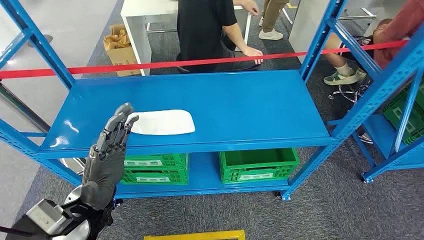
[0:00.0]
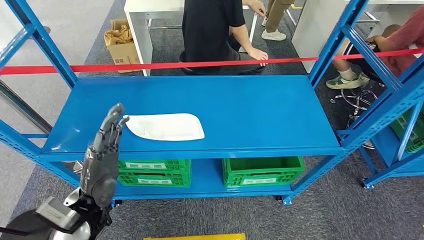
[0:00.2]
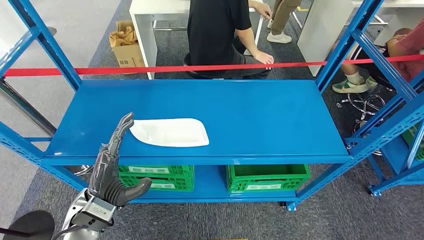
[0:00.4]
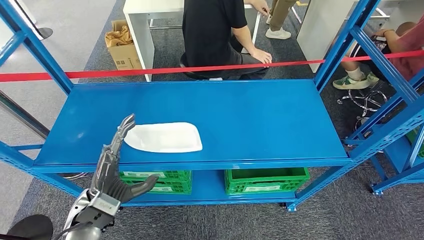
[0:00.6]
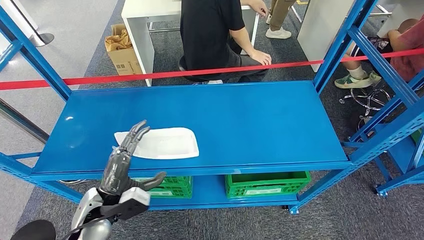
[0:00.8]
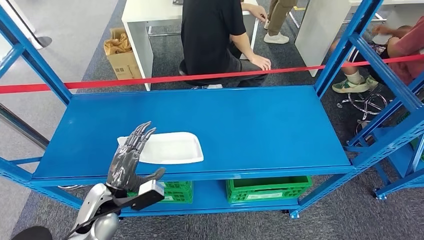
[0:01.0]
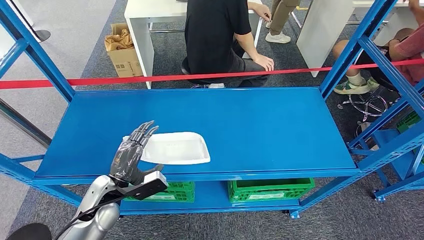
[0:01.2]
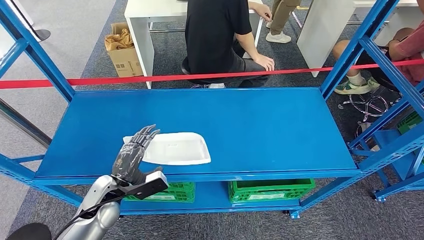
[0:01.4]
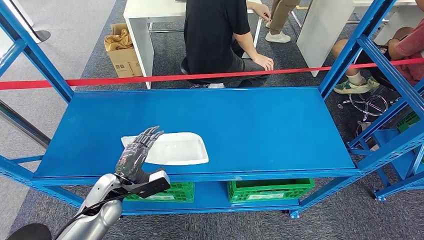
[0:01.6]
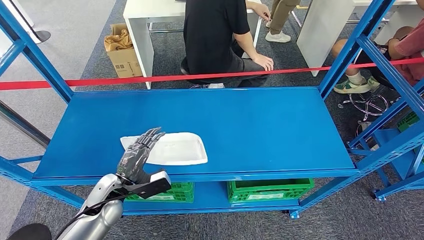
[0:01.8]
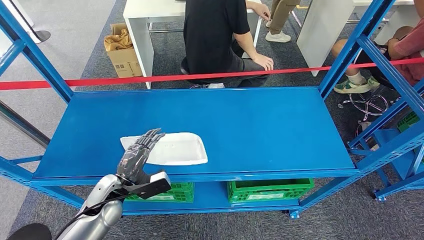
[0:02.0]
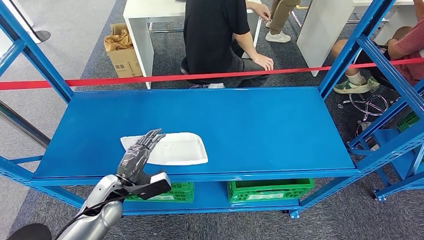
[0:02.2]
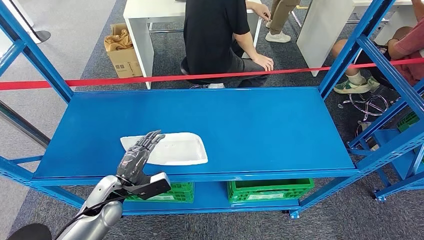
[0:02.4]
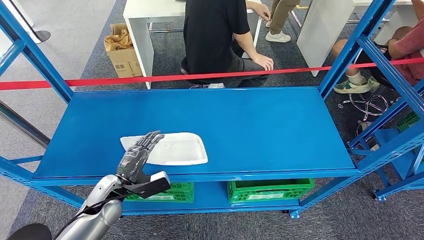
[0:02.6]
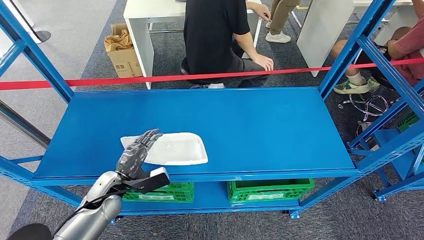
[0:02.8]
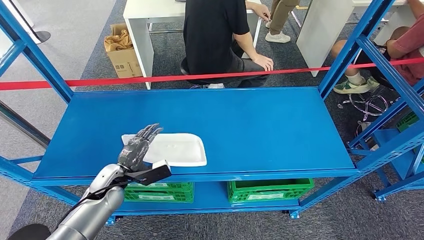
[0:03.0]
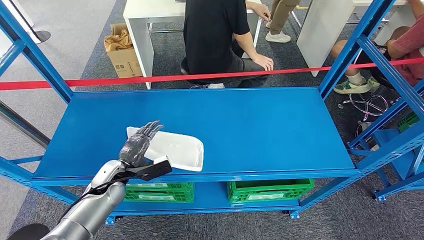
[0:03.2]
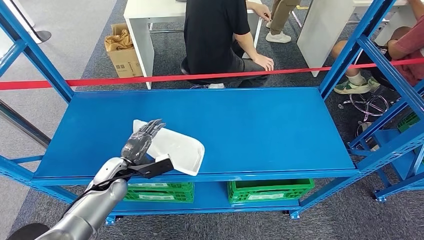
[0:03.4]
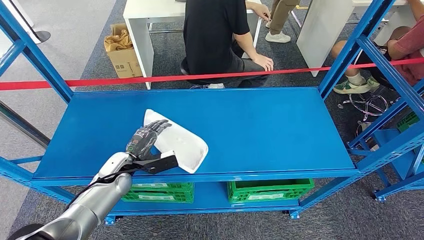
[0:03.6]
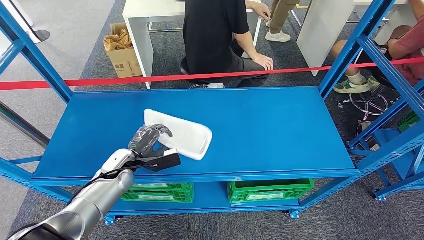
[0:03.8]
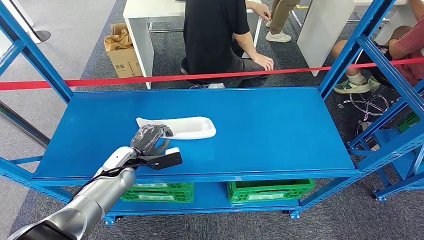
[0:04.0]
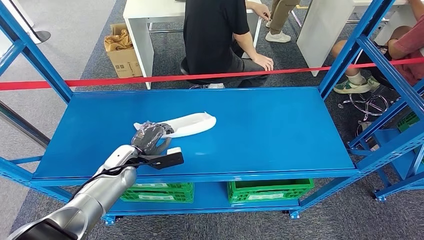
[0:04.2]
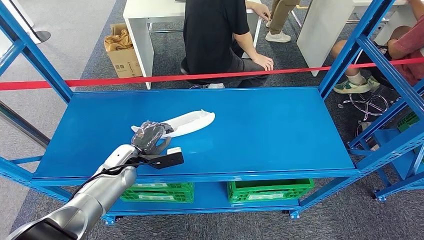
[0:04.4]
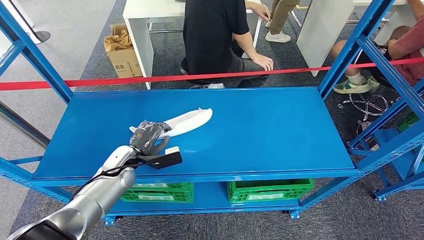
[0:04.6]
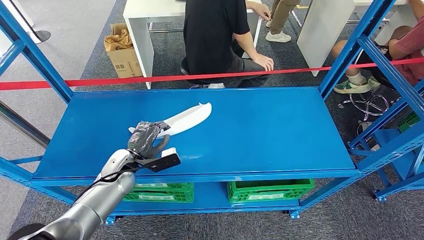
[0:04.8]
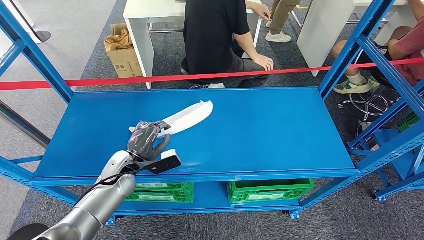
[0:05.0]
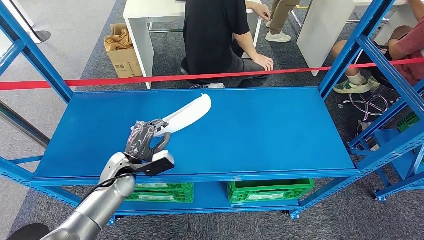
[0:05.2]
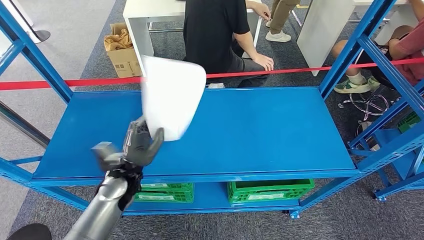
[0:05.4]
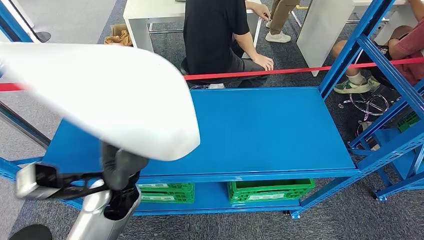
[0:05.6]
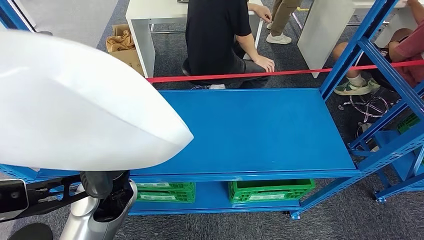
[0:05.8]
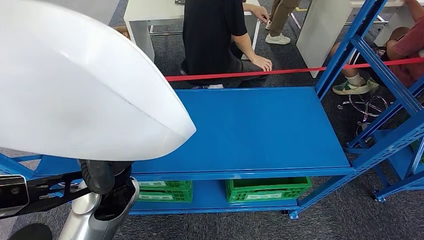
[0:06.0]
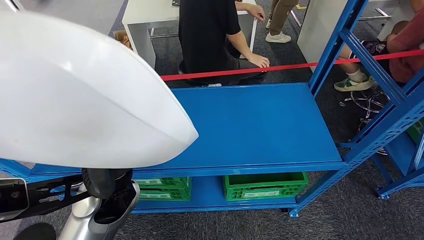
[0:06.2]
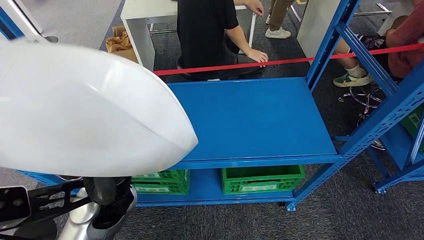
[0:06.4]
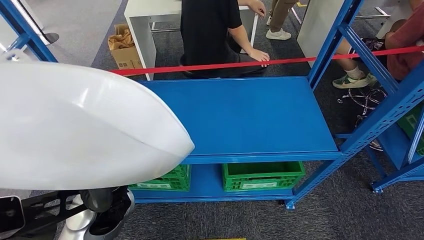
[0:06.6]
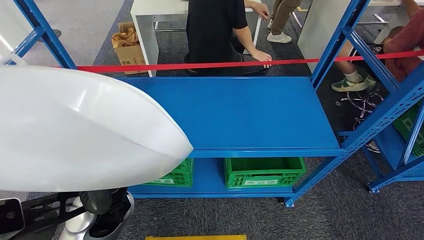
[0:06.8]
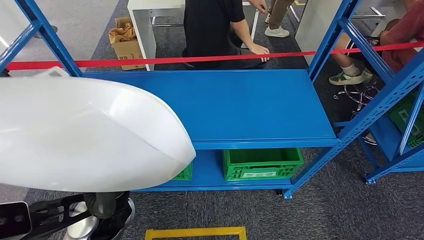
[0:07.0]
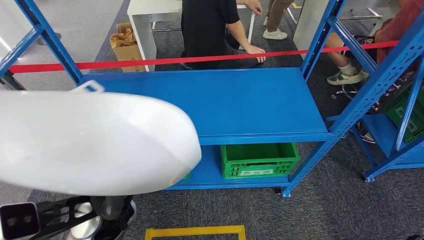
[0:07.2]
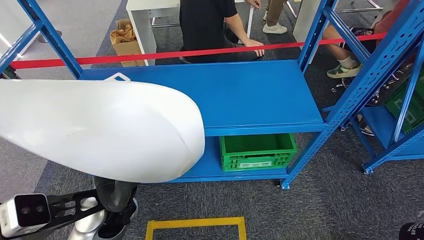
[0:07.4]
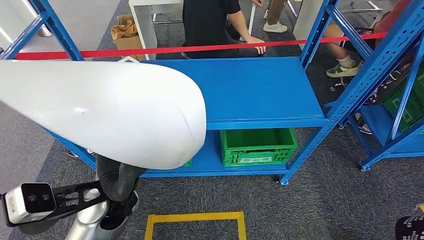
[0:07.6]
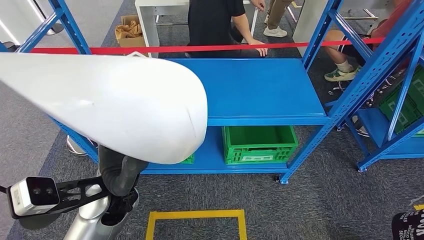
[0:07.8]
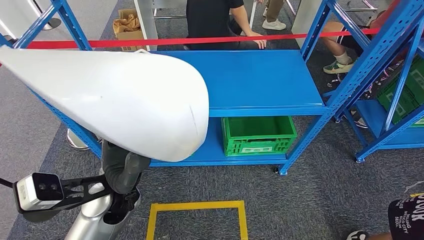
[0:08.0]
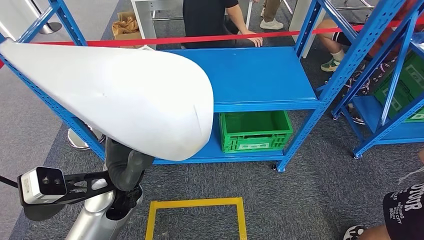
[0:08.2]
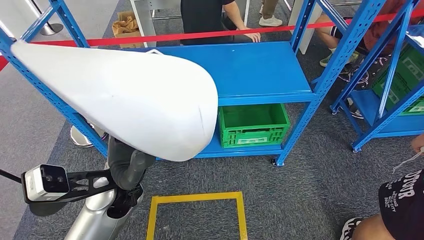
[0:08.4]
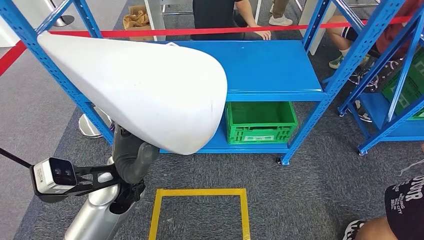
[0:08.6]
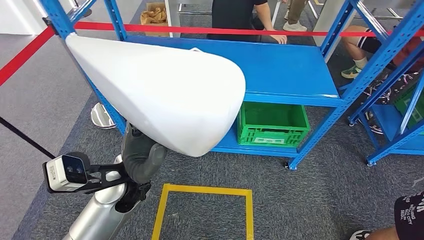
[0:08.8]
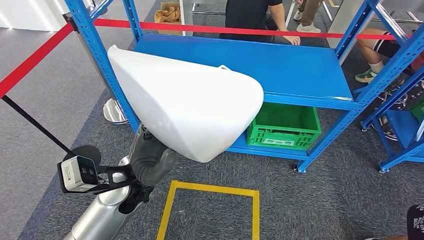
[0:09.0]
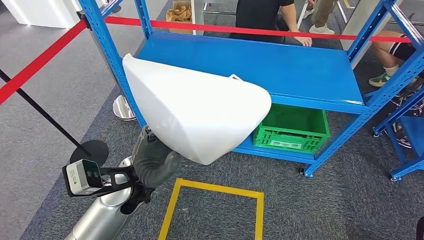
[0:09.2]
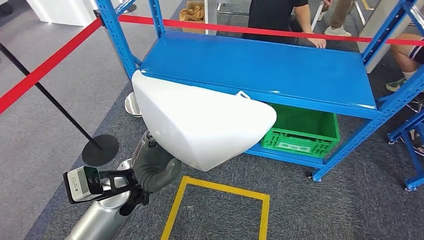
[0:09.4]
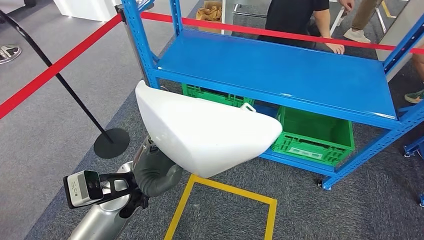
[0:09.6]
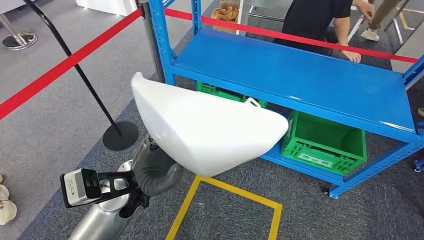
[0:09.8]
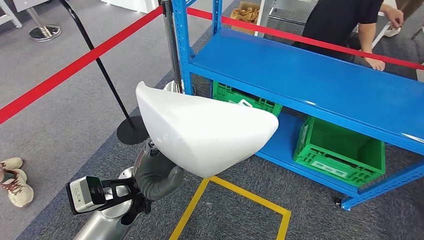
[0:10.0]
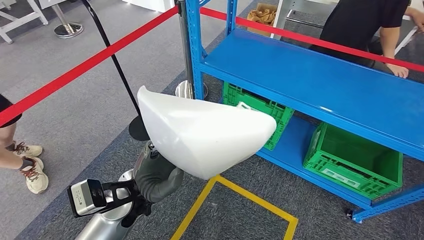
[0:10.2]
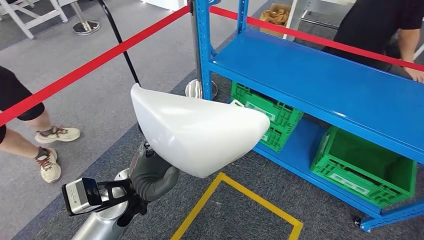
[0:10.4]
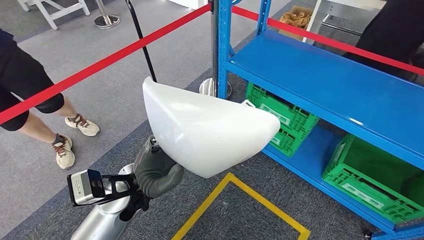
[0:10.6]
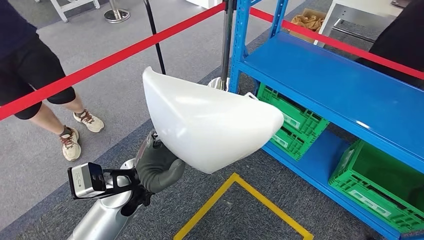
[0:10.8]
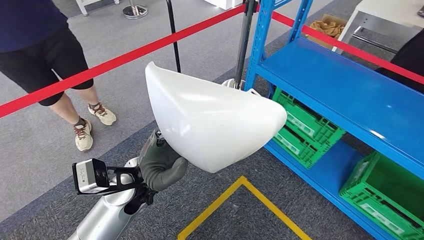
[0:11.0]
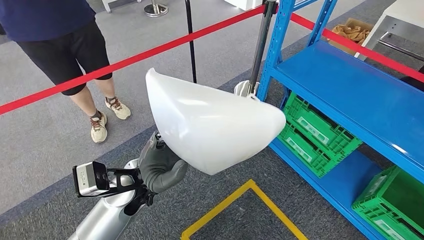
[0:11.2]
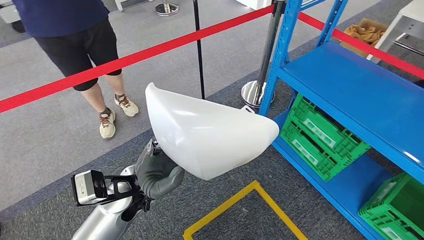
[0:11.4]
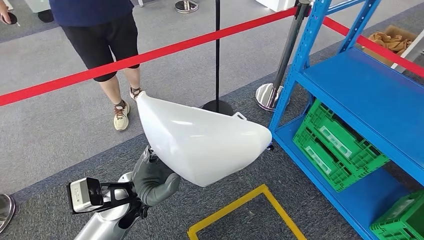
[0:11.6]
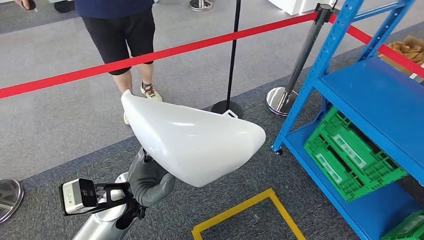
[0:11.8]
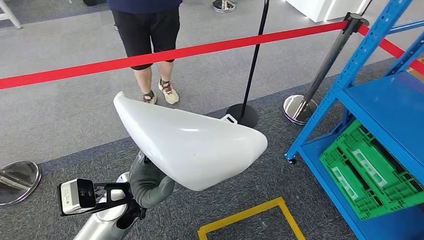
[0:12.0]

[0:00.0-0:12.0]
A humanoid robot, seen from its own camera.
Step, 0:00.0 to 0:06.2: Pick up the small parts from the shelf.
0:01.6 to 0:03.0: The hands make only small movements.
0:03.0 to 0:04.4: The left hand travels forward by roughly 5 cm.

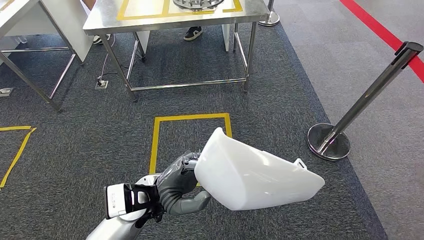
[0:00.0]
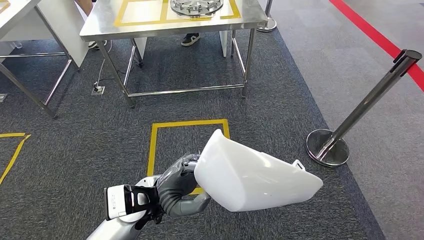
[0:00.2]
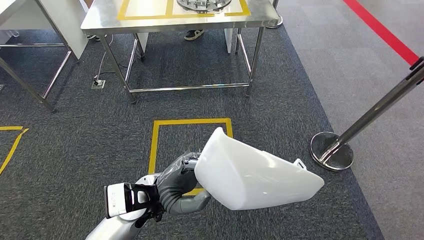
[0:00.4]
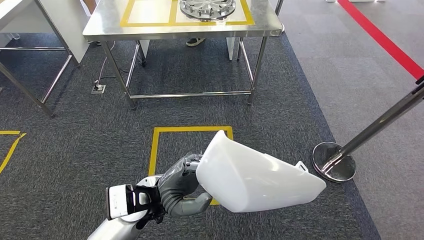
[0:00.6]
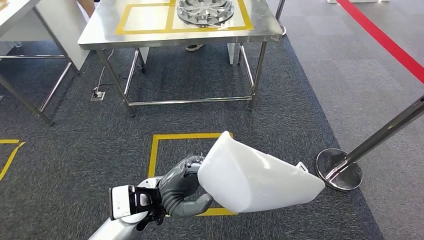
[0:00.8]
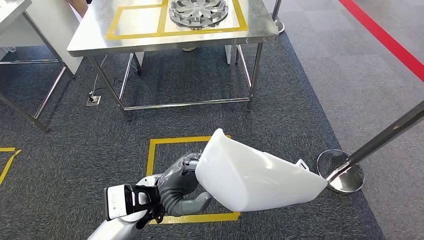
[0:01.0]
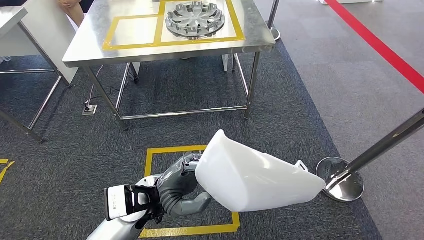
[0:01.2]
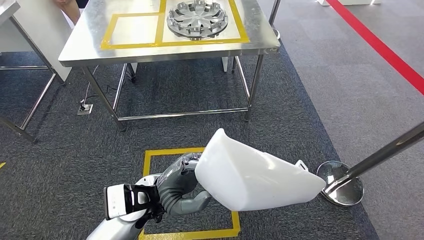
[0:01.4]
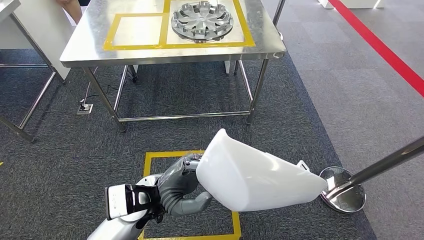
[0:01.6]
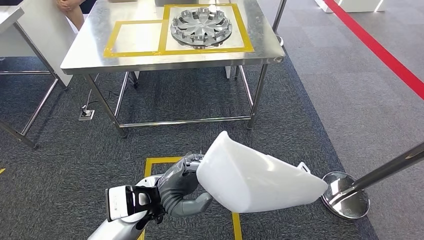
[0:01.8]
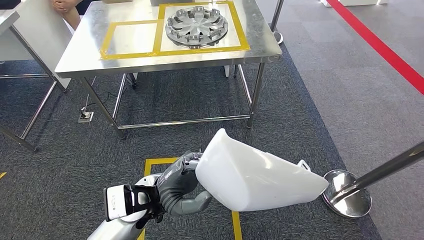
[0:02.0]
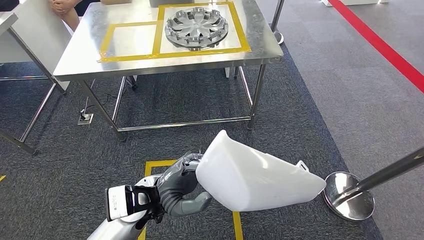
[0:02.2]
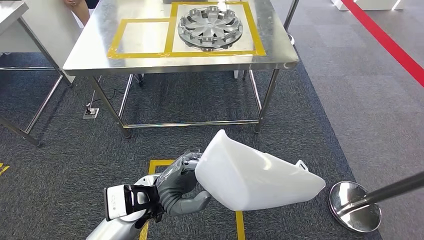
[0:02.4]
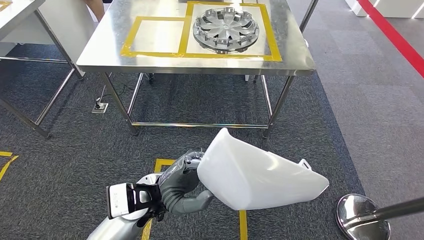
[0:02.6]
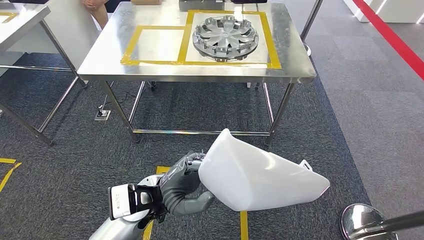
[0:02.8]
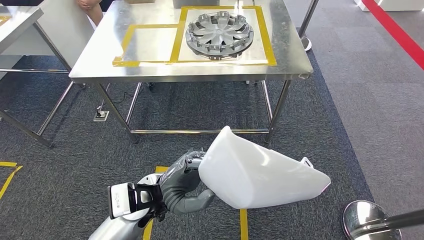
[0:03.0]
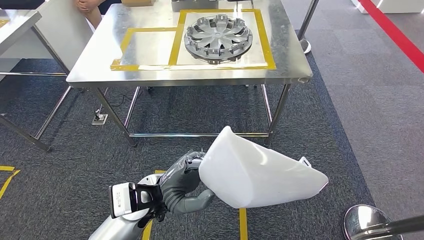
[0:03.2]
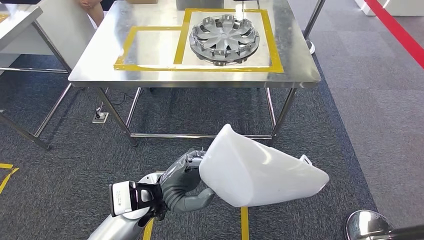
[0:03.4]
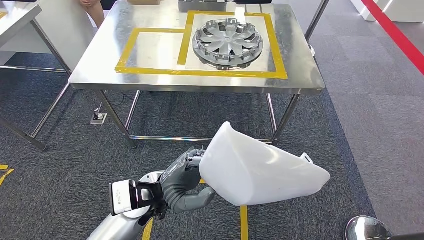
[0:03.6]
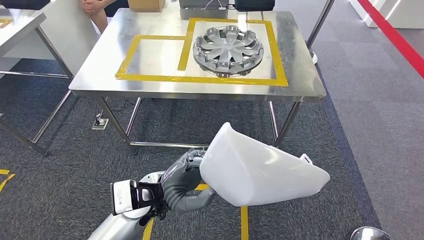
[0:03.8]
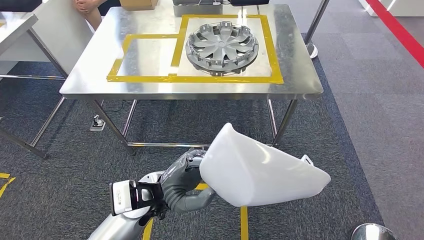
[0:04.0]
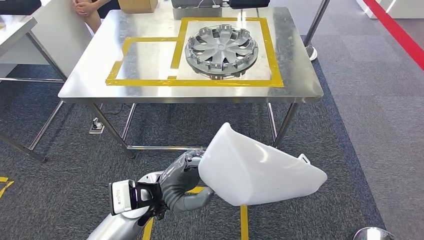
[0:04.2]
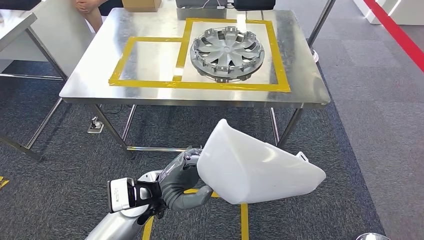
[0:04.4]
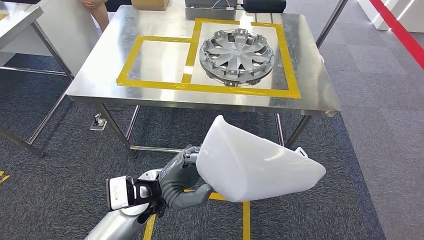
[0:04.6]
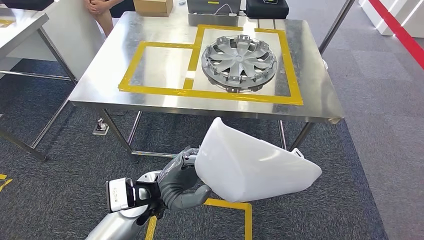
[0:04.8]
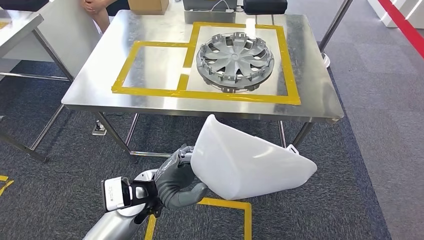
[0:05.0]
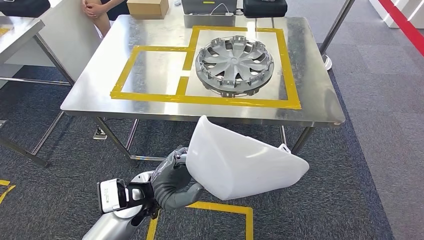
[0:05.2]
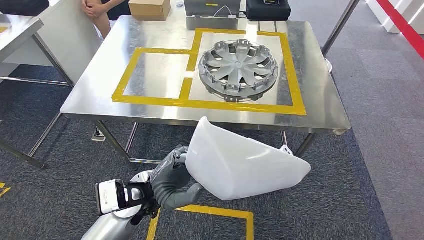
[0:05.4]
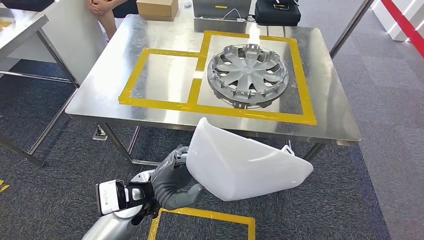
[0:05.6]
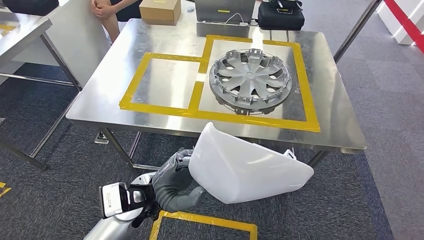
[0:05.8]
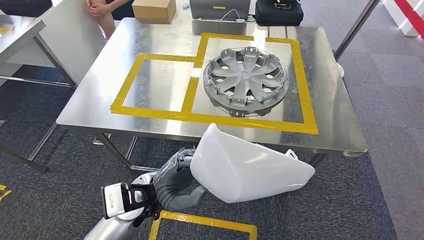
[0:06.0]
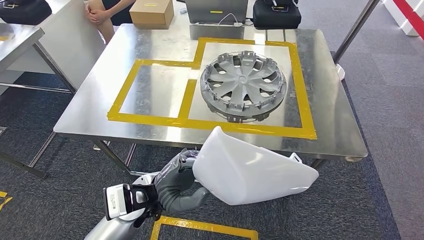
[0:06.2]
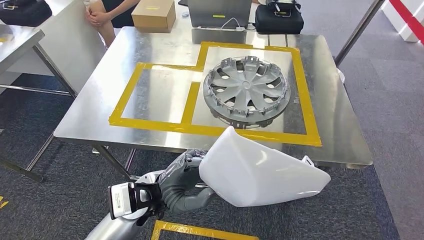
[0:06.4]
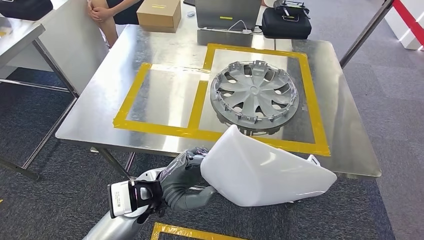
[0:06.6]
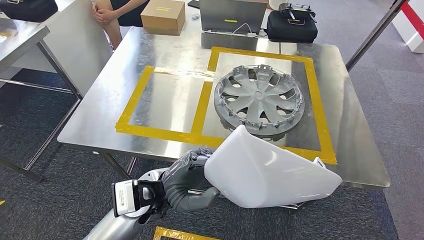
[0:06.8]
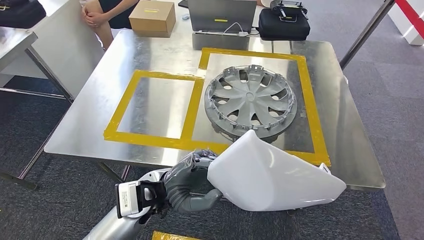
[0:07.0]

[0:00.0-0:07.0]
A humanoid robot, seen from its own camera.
Step, 0:00.0 to 0:06.4: Move the small parts to the workbench.
